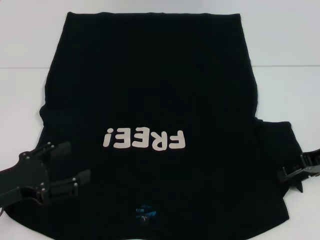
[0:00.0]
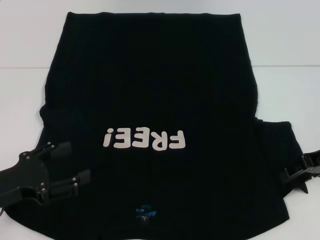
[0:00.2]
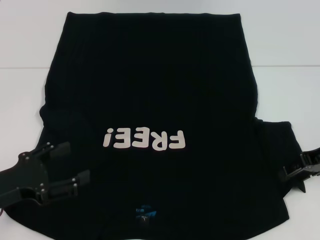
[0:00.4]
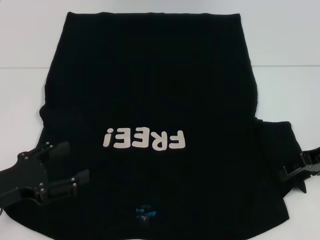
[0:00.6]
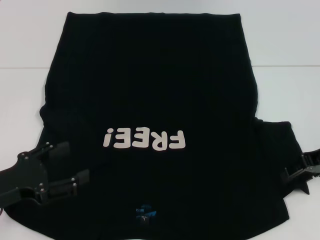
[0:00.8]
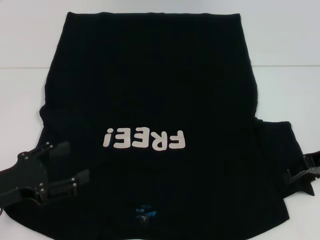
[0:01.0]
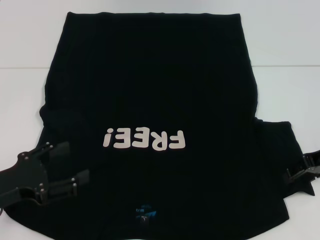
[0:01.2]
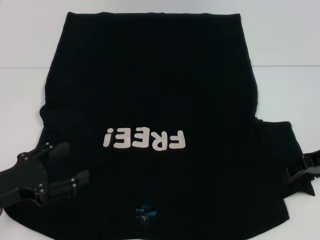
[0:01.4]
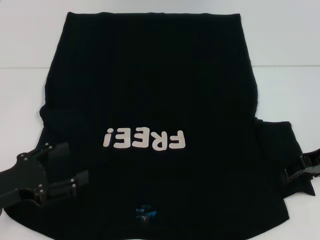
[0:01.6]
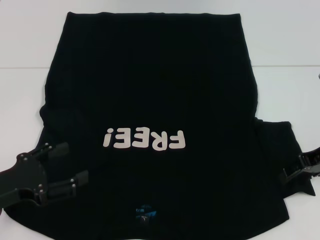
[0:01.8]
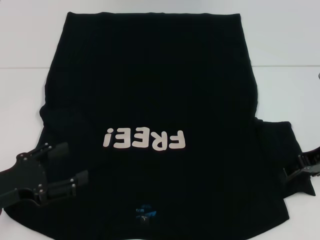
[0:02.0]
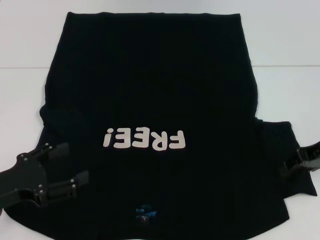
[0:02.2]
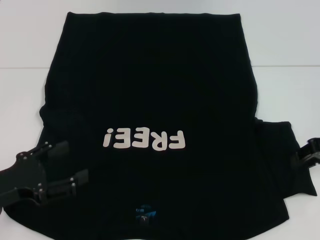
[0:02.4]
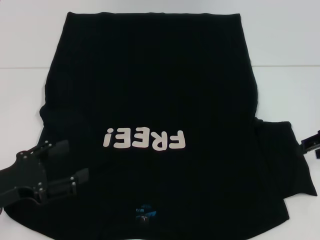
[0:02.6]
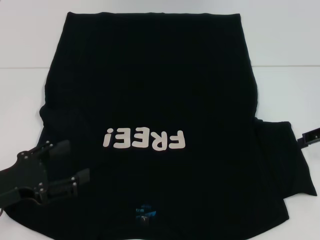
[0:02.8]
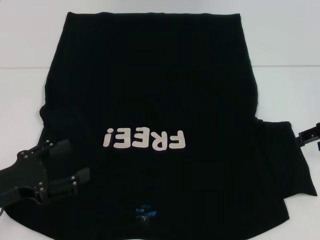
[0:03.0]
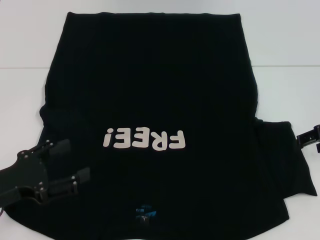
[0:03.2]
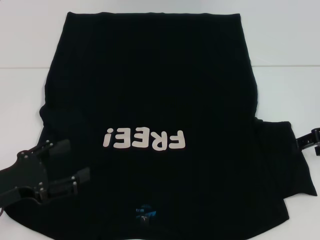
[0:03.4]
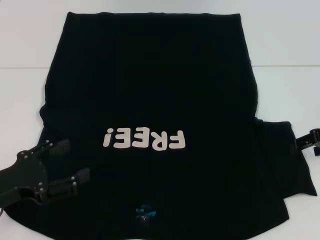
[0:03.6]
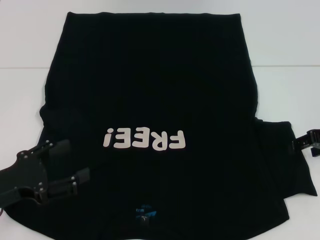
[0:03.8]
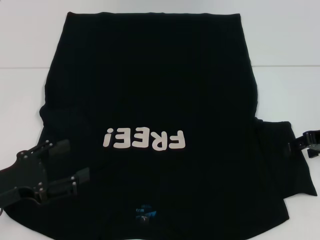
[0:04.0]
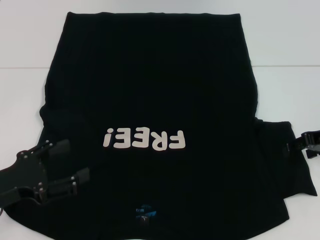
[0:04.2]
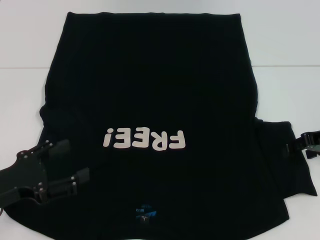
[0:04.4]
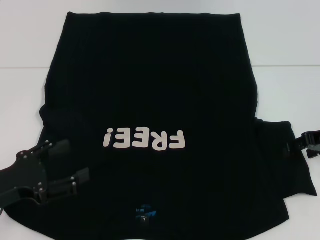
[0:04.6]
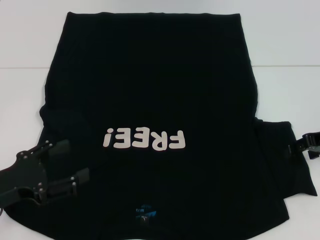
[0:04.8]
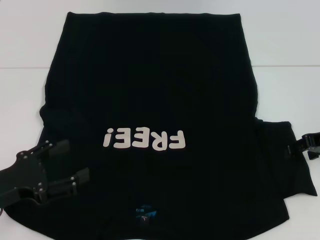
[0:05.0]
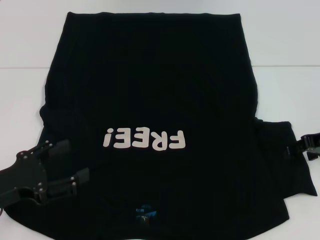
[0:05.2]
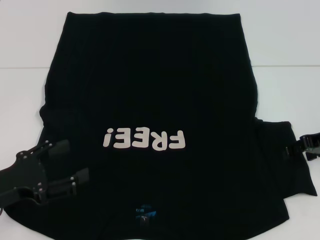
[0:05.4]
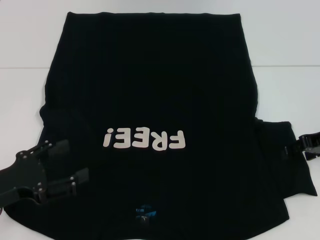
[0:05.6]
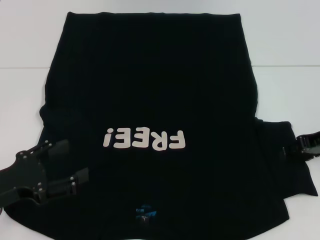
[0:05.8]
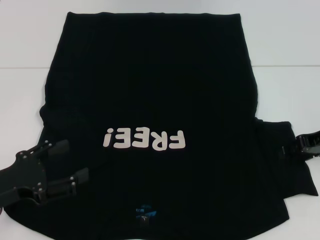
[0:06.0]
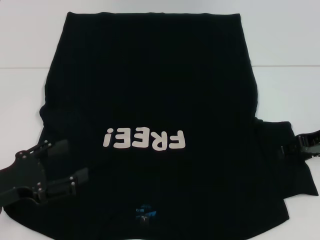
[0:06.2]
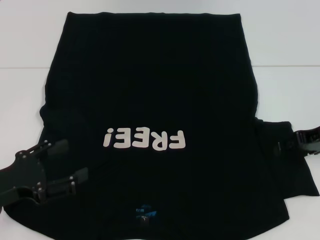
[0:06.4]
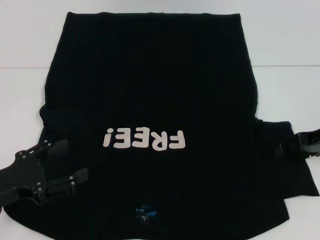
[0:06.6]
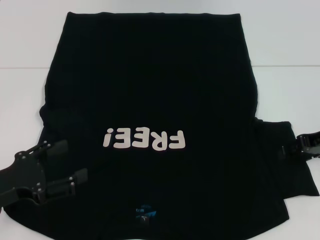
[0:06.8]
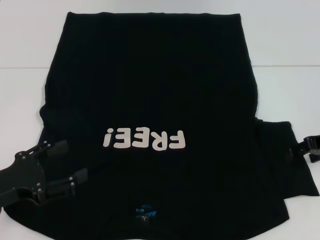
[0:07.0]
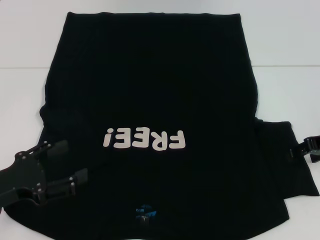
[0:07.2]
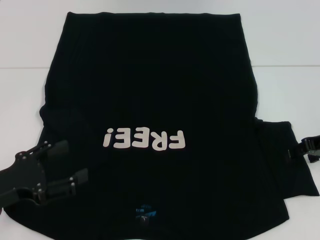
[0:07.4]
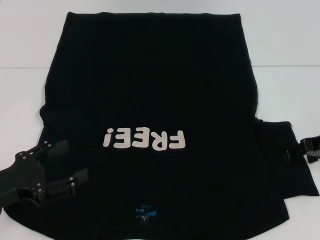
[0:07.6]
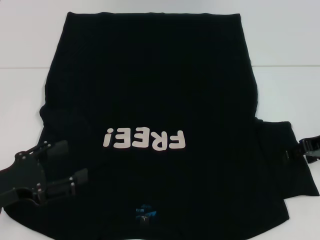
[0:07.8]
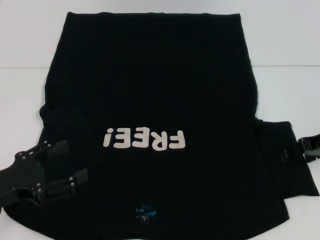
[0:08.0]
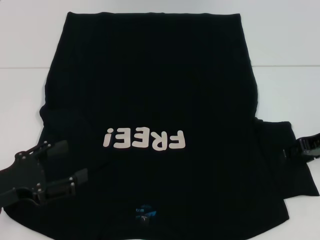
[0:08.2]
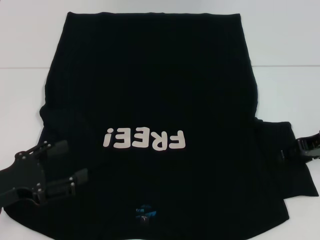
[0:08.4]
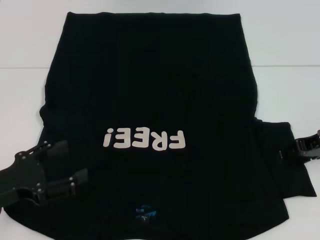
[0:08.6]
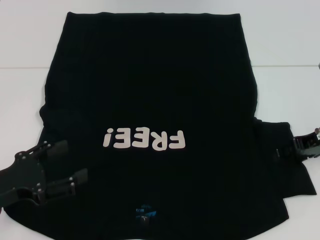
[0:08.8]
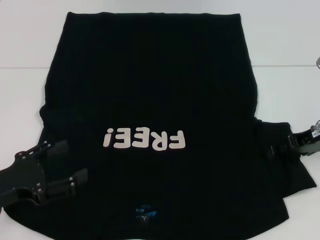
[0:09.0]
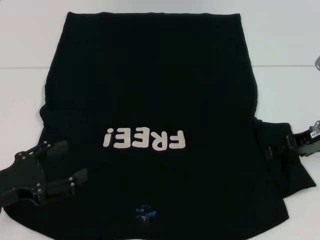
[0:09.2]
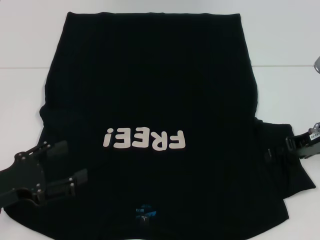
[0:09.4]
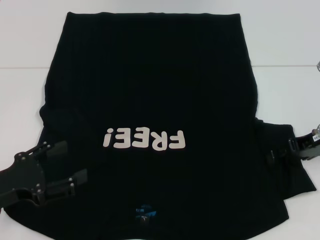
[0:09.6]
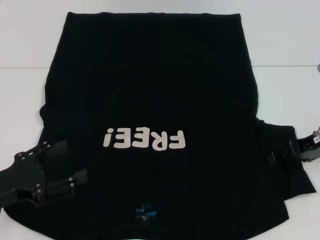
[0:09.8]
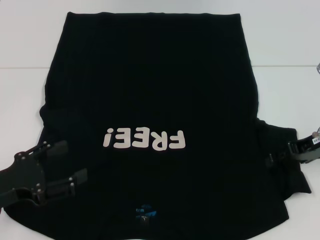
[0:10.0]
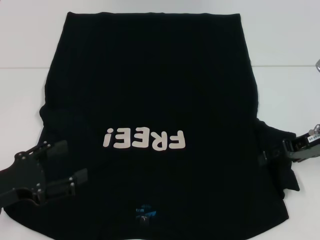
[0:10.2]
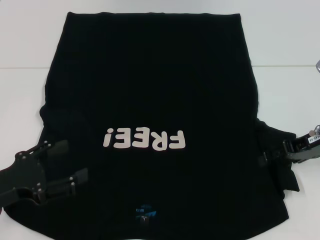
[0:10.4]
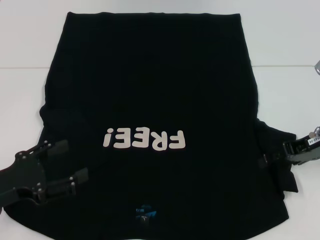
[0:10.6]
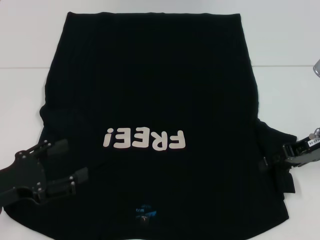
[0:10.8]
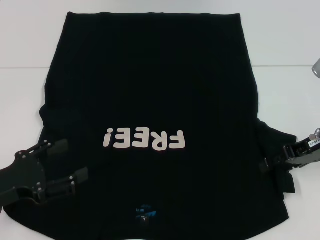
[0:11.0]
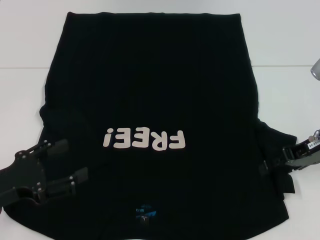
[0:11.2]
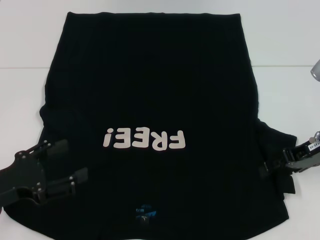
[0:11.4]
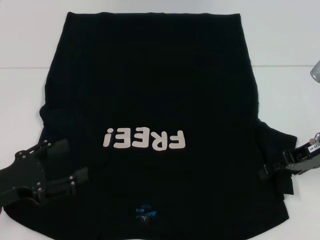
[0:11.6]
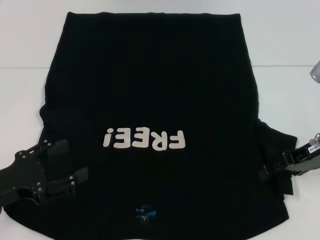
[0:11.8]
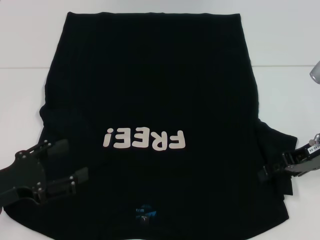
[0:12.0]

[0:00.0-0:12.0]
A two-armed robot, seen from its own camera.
0:01.6 to 0:03.0: The grippers stay close to where they were, moving slightly.
0:04.4 to 0:07.6: The two grippers keep their place.
0:07.6 to 0:12.0: The grippers stay close to where they were, moving slightly.

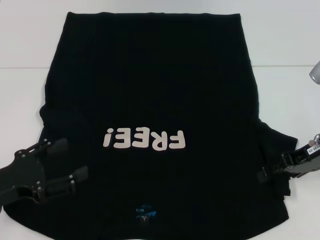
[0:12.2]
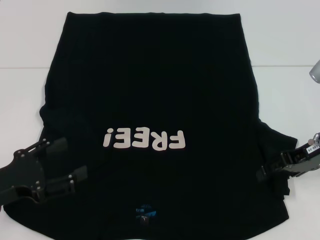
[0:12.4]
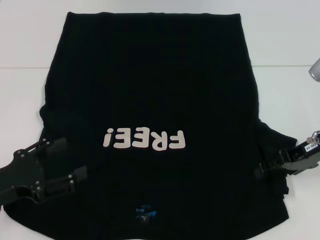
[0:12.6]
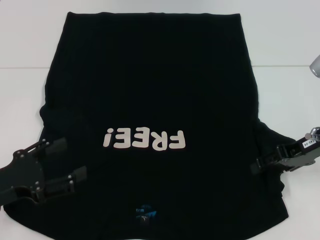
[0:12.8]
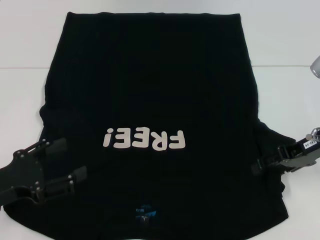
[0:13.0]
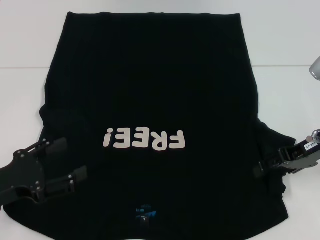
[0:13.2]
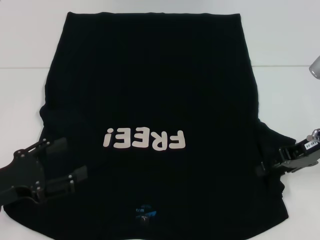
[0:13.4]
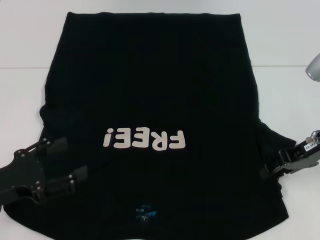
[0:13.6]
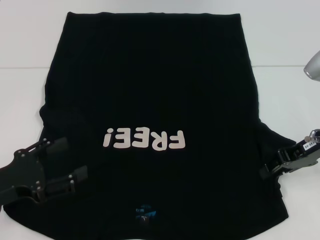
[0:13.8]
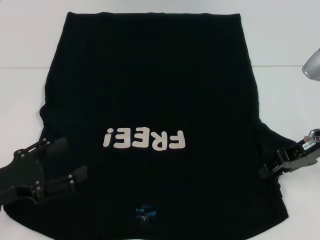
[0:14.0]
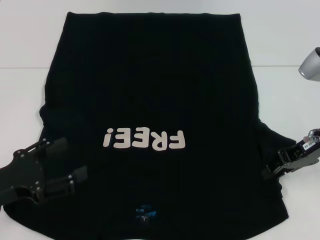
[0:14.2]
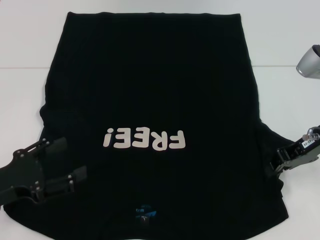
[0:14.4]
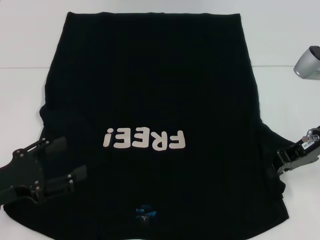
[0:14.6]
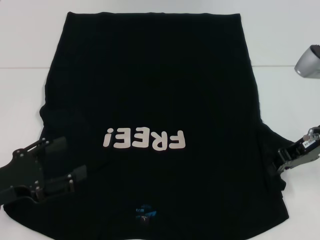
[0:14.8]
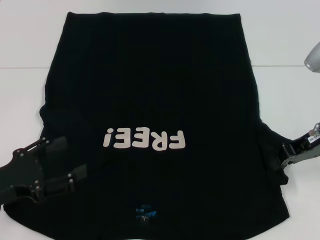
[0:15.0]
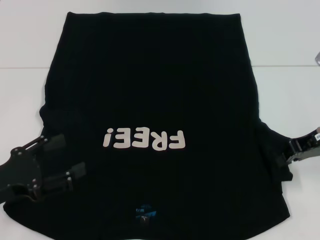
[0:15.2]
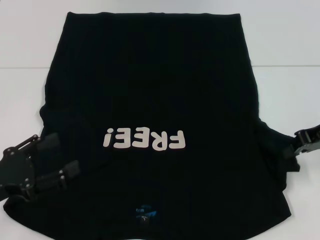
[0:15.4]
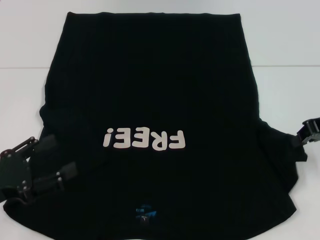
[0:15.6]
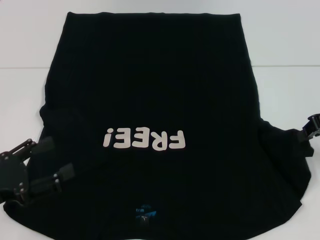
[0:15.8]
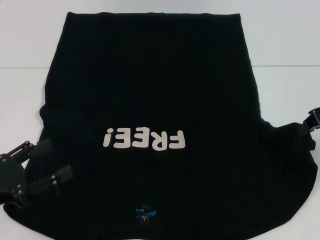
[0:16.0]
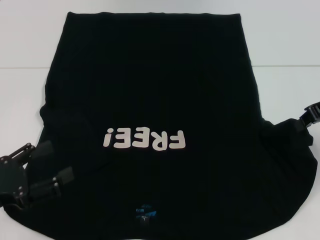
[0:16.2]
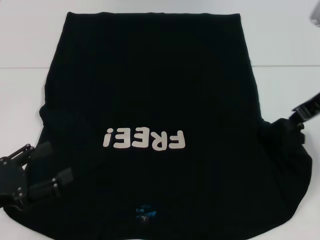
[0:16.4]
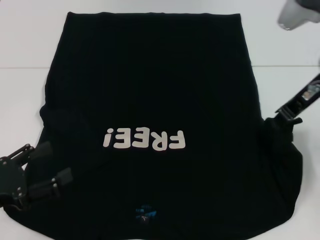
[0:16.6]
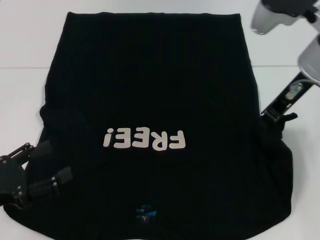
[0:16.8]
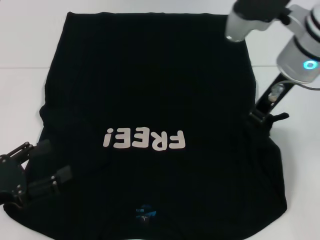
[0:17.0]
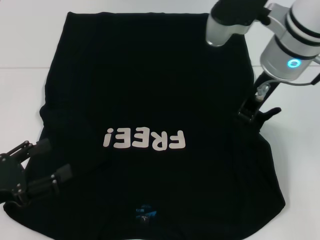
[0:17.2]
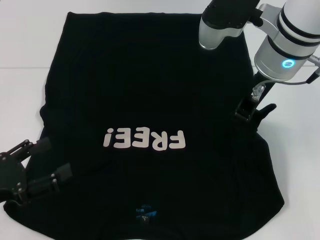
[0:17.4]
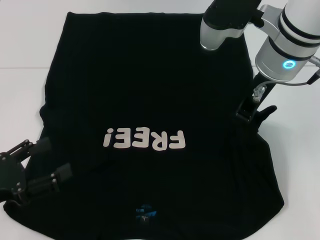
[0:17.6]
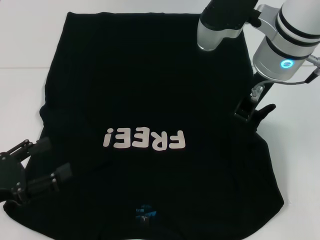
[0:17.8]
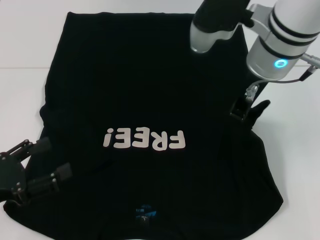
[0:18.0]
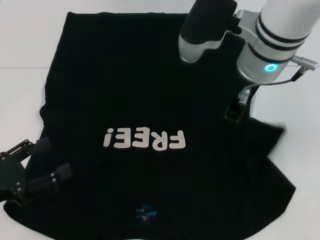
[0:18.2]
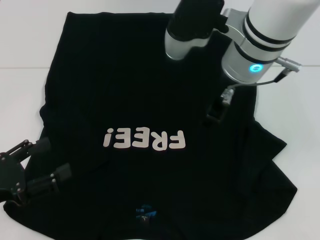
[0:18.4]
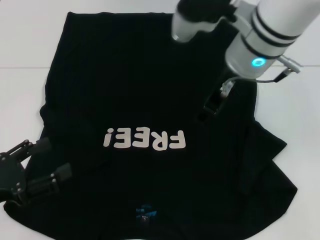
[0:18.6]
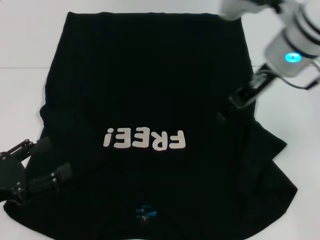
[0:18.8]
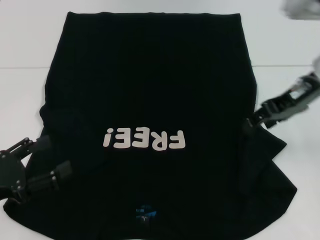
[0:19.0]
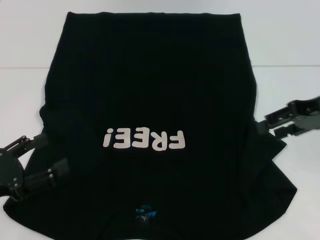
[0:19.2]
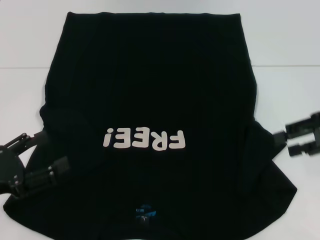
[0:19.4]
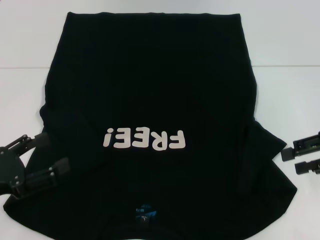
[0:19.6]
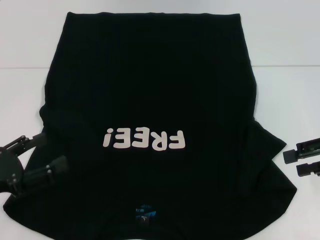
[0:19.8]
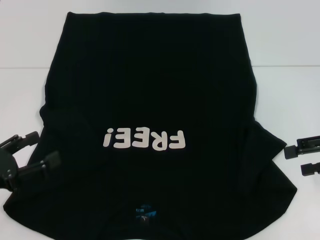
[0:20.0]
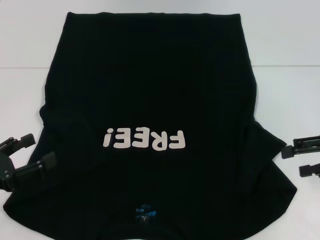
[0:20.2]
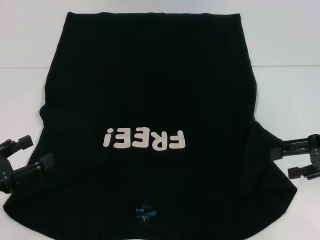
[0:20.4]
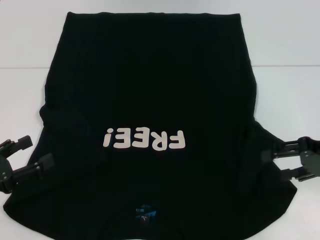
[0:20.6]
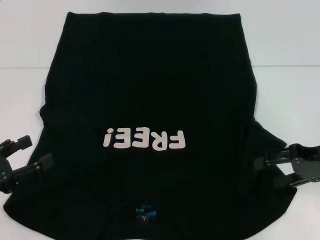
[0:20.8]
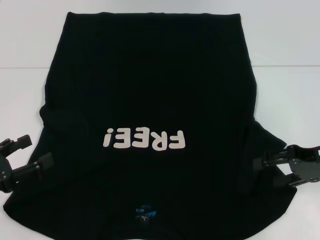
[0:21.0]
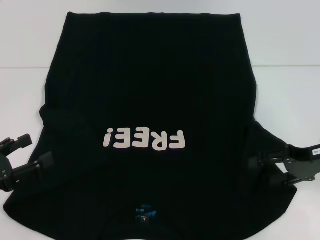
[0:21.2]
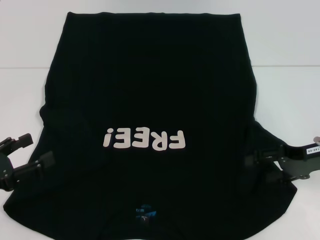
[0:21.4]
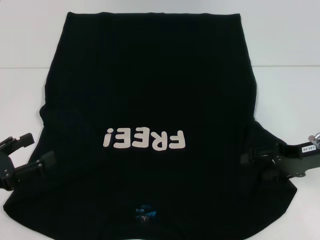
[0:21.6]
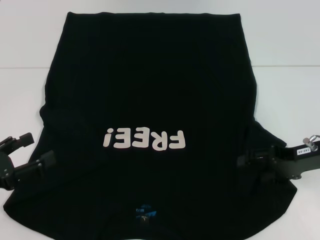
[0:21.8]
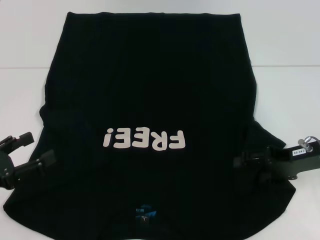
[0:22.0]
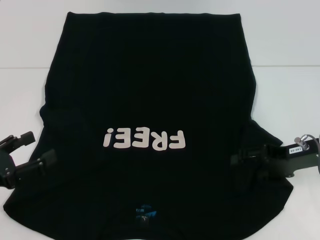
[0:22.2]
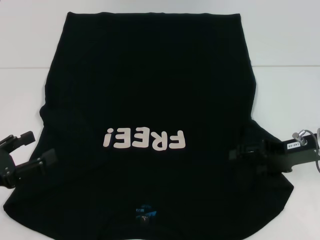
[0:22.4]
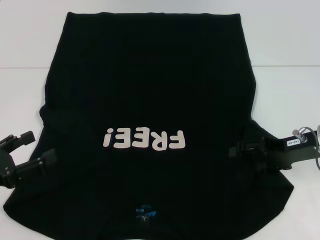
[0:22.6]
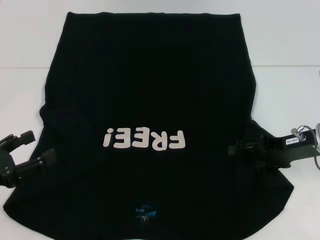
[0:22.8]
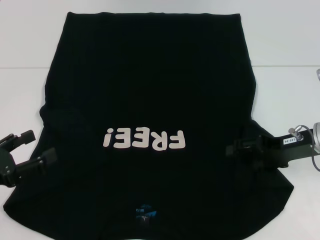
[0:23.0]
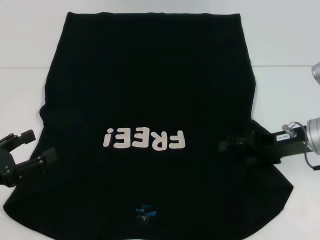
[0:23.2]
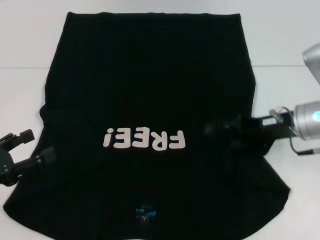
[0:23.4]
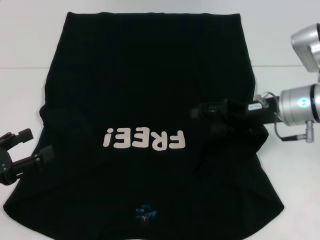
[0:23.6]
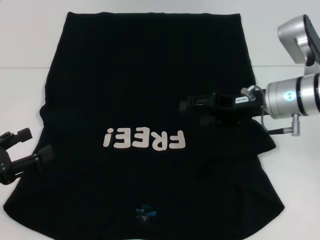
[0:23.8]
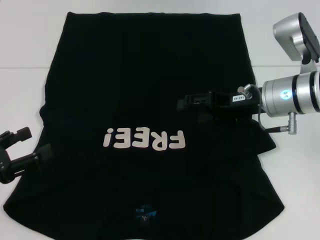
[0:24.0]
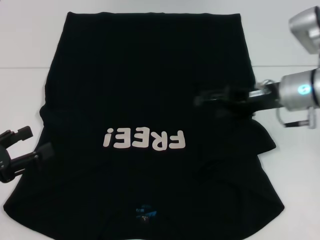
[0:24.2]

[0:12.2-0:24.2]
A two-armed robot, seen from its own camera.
0:12.2 to 0:13.8: Neither gripper changes place.
0:13.8 to 0:15.2: The right gripper closes up.
0:15.2 to 0:16.6: The right gripper heads upward and to the left, covering approximately 10 cm.
0:16.6 to 0:18.2: The right gripper goes roughly 10 cm to the left.
0:18.2 to 0:19.8: The right gripper moves to the right, approximately 25 cm, and opens its fingers.
0:19.8 to 0:21.2: The right gripper ends up some 5 cm from where it was.
0:21.2 to 0:22.6: There are only small adjustments of the grippers.
0:22.6 to 0:24.2: The right gripper shifts approximately 5 cm to the left.
